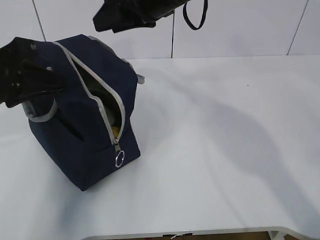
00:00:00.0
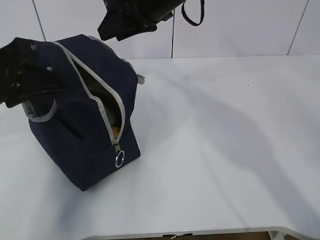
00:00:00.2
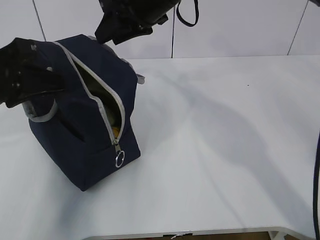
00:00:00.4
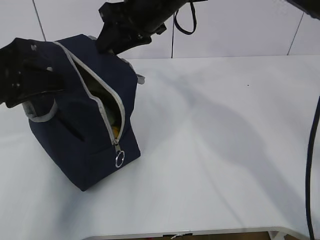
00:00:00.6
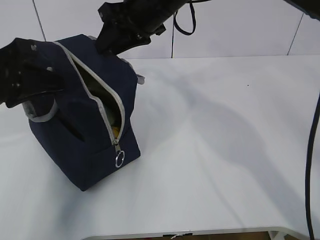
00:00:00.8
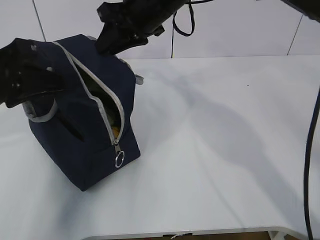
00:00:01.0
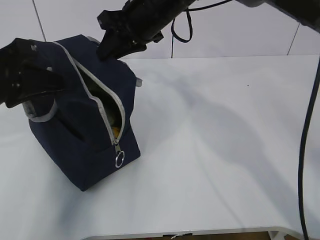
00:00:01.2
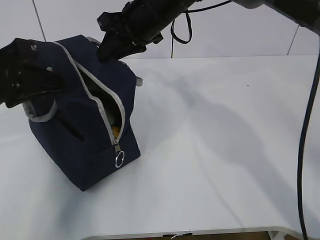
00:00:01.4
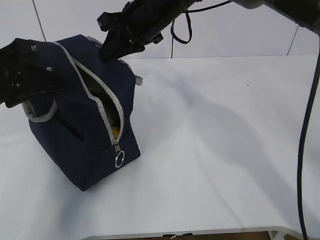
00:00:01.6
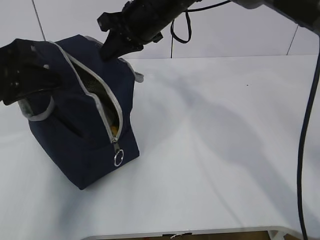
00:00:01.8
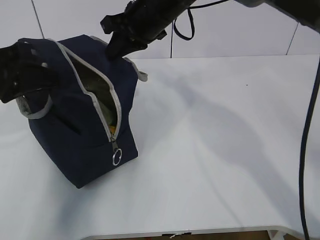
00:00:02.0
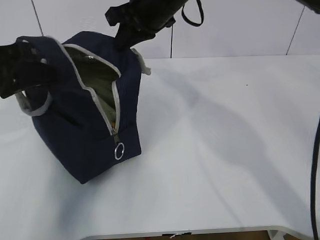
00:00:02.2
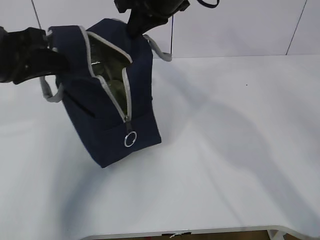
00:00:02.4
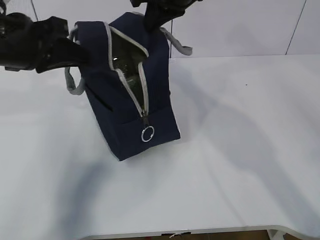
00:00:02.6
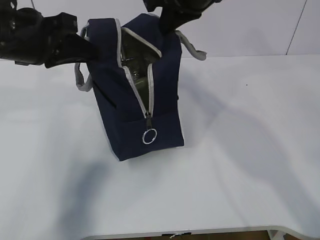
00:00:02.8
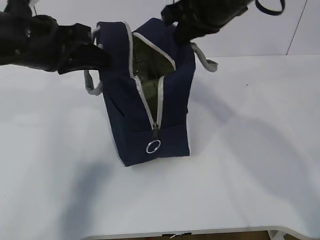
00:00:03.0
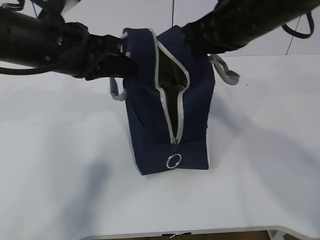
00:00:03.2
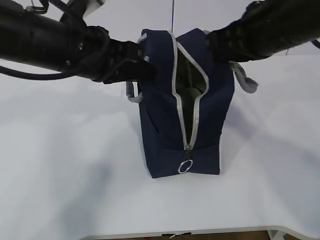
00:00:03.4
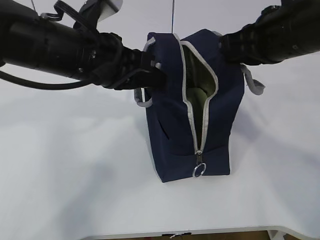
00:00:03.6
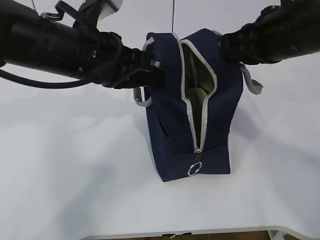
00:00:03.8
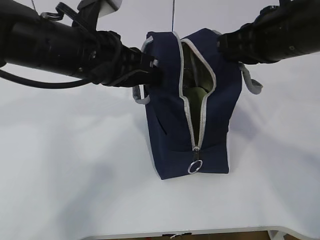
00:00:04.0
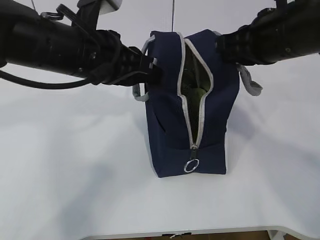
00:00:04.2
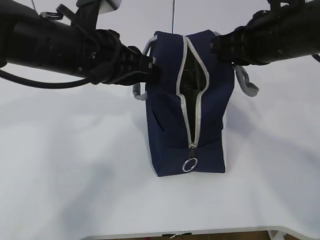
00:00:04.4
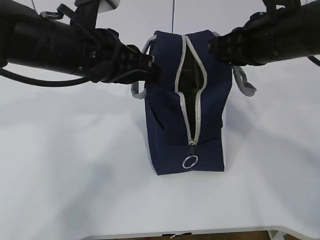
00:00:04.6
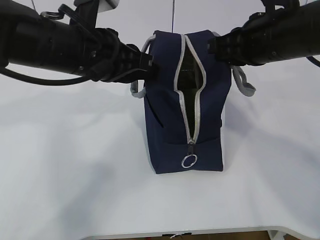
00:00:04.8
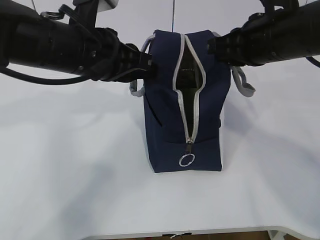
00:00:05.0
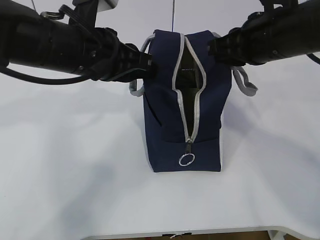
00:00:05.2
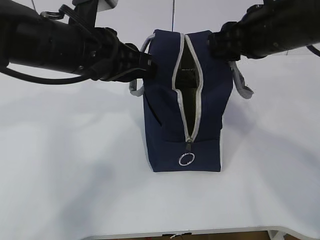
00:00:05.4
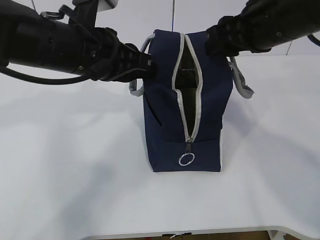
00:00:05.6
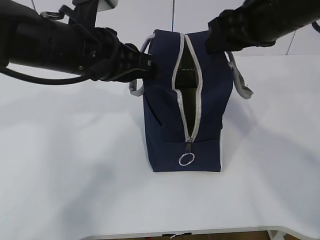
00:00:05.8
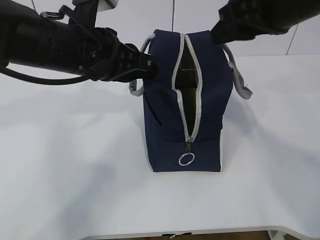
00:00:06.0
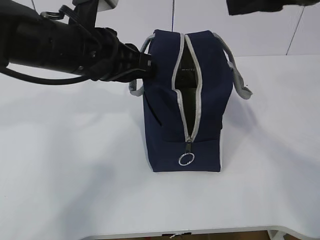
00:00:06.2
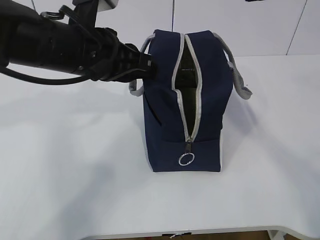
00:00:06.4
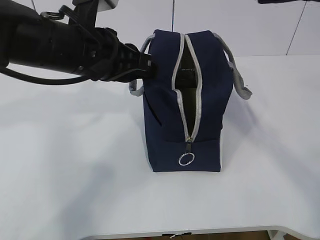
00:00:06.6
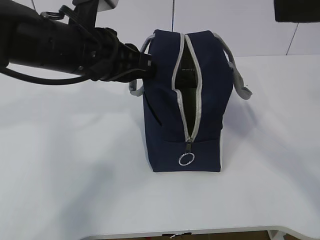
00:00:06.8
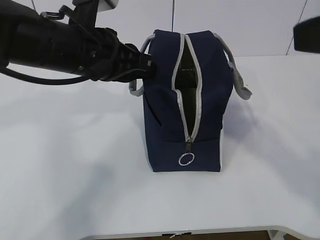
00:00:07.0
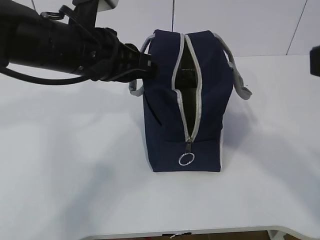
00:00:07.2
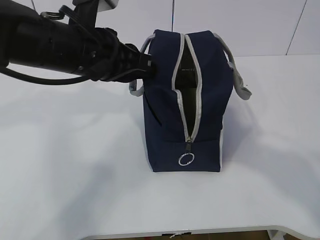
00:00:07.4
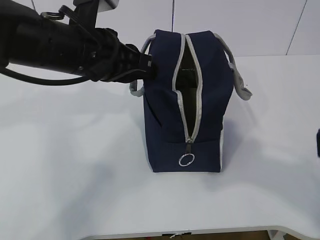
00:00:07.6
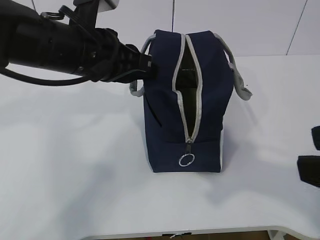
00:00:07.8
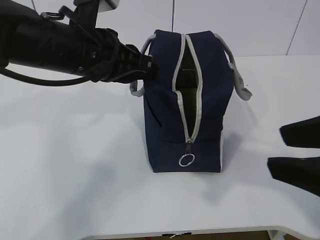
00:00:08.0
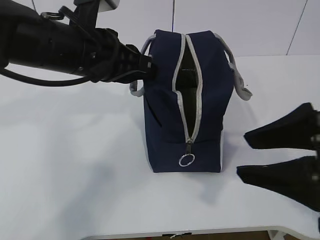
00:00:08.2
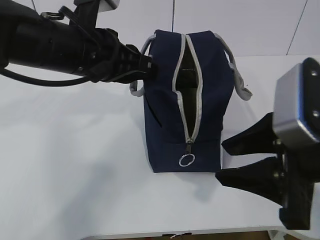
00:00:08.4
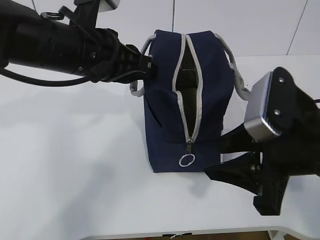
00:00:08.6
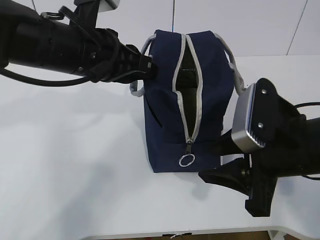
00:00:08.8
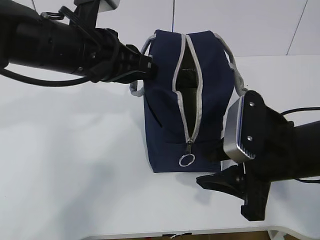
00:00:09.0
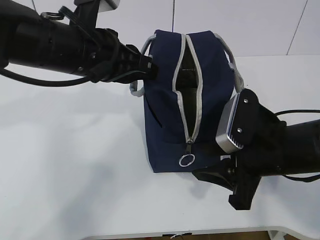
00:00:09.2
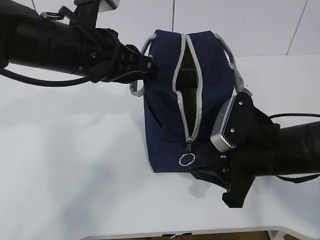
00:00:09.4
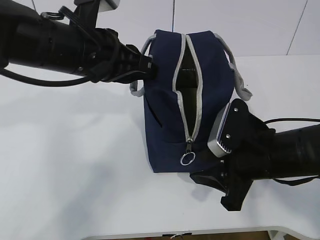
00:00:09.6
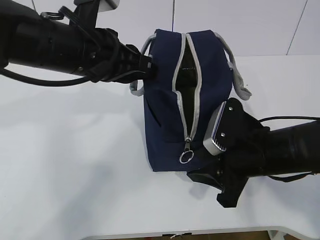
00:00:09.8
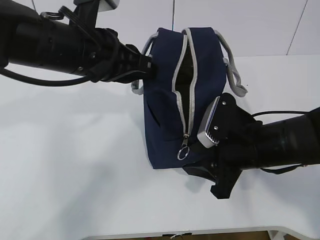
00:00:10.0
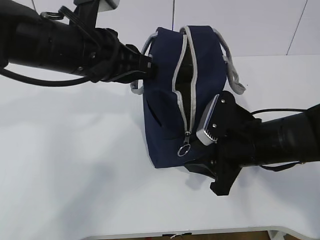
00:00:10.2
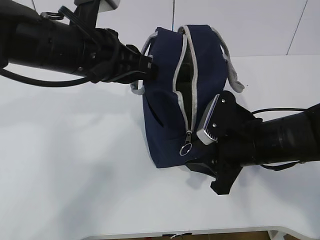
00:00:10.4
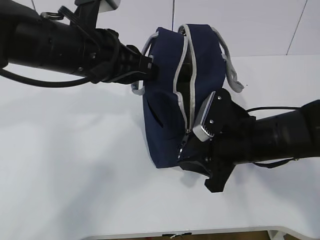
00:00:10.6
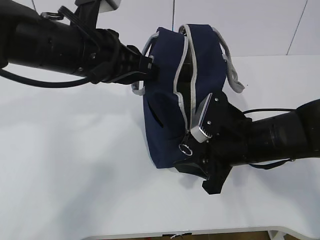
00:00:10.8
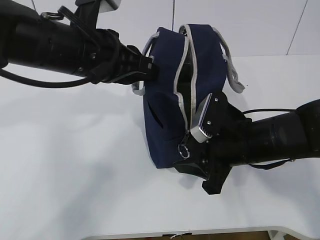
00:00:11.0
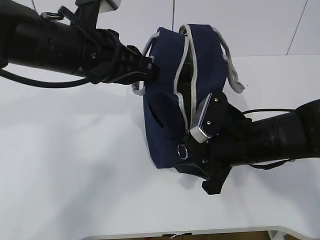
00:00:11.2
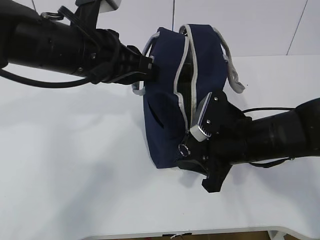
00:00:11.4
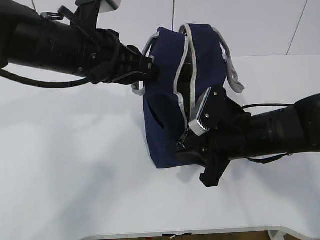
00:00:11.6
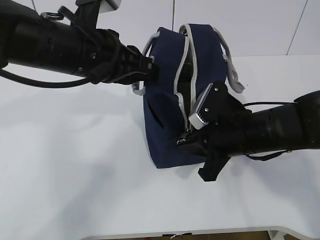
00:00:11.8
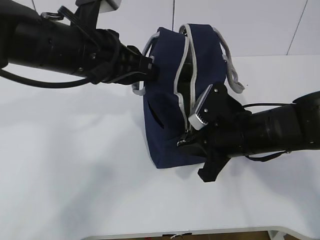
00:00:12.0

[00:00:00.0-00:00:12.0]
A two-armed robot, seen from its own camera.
00:00:00.0 to 00:00:01.6: The right gripper ends up approximately 5 cm from where it was, and closes up.
00:00:01.6 to 00:00:03.0: The right gripper goes roughly 10 cm to the right, backward and upward. Meanwhile the left gripper is displaced forward by approximately 5 cm.
00:00:03.0 to 00:00:04.4: The right gripper moves to the right and backward, about 10 cm. Meanwhile the left gripper shifts approximately 10 cm to the right.
00:00:04.4 to 00:00:06.0: The right gripper goes roughly 5 cm upward, and opens.
00:00:06.0 to 00:00:07.6: The right gripper heads backward, covering some 20 cm.
00:00:07.6 to 00:00:09.0: The right gripper shifts approximately 20 cm forward, downward and to the left.
00:00:09.0 to 00:00:10.4: The right gripper moves forward, approximately 5 cm.
00:00:10.4 to 00:00:12.0: The right gripper closes.

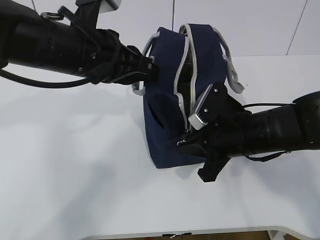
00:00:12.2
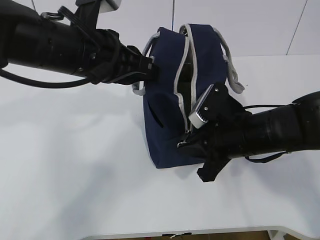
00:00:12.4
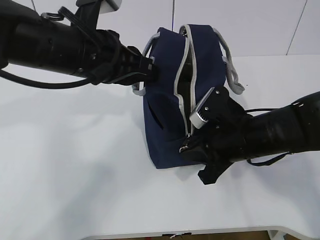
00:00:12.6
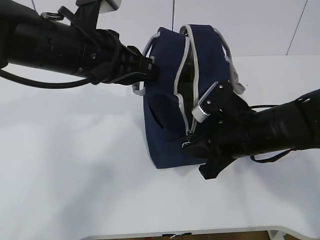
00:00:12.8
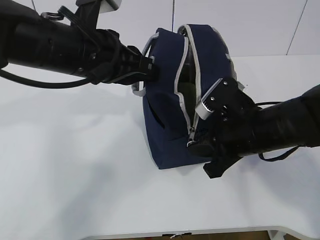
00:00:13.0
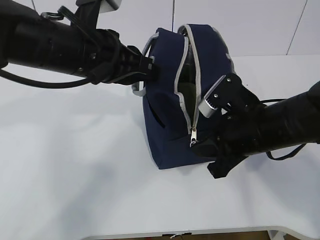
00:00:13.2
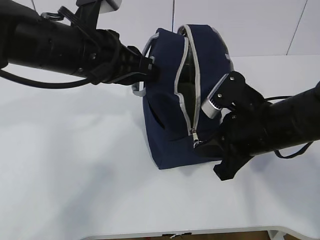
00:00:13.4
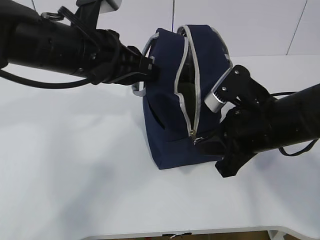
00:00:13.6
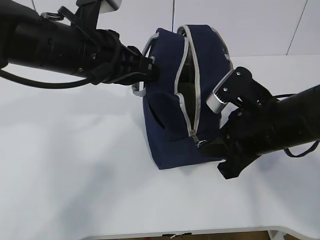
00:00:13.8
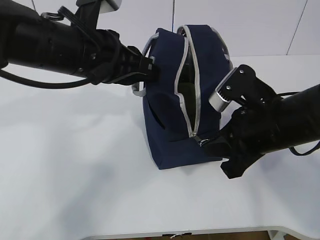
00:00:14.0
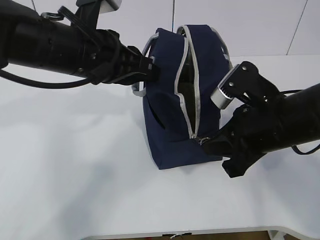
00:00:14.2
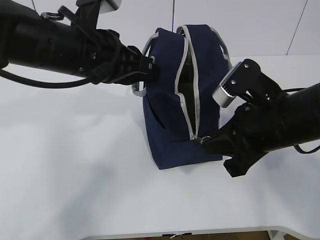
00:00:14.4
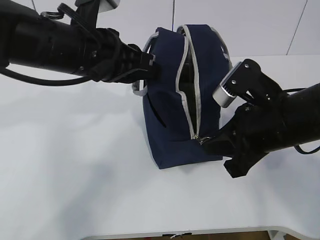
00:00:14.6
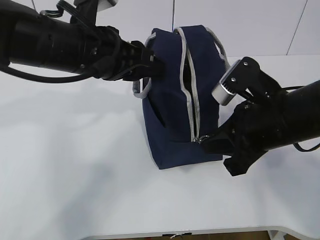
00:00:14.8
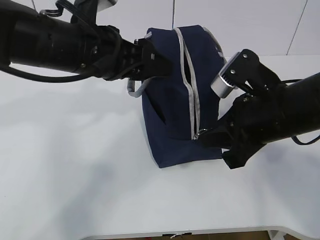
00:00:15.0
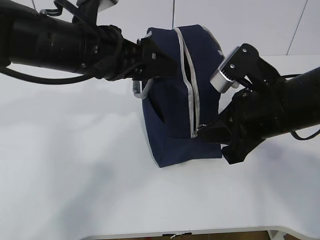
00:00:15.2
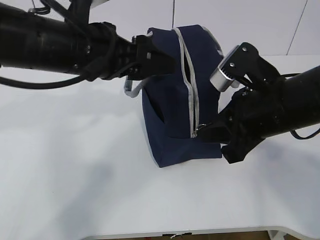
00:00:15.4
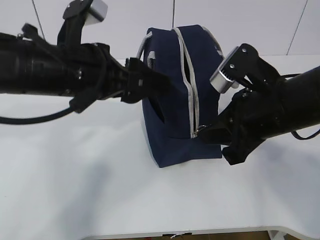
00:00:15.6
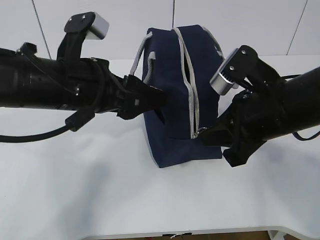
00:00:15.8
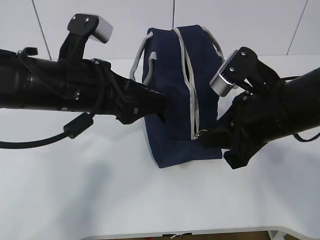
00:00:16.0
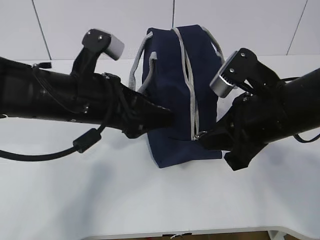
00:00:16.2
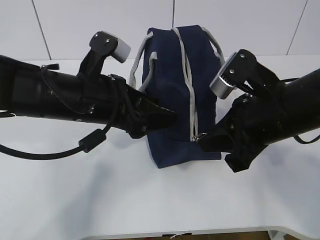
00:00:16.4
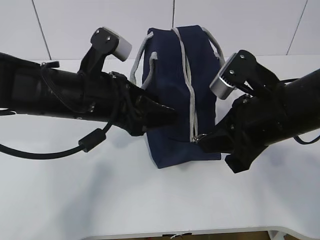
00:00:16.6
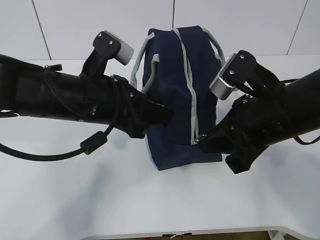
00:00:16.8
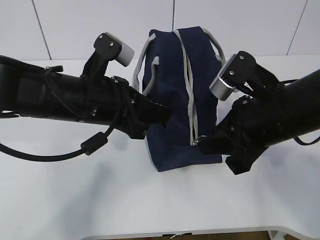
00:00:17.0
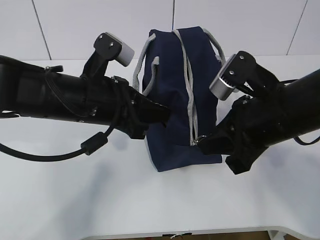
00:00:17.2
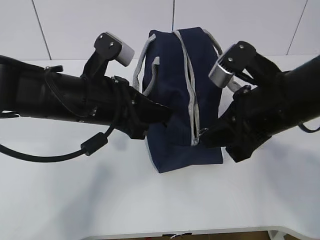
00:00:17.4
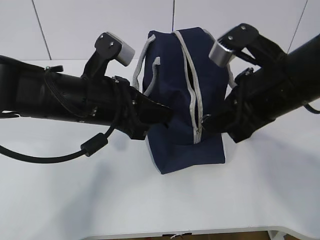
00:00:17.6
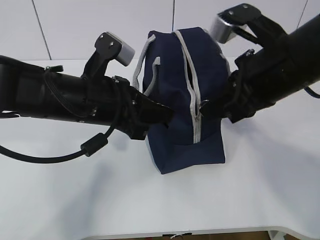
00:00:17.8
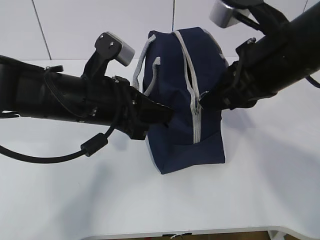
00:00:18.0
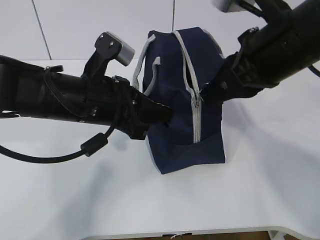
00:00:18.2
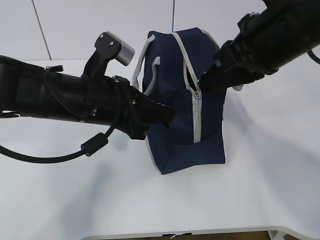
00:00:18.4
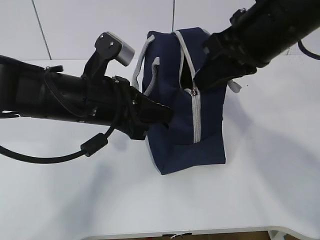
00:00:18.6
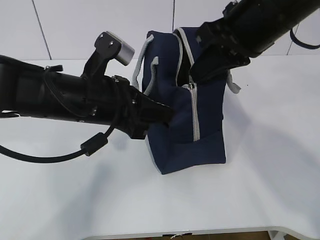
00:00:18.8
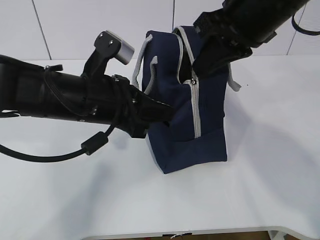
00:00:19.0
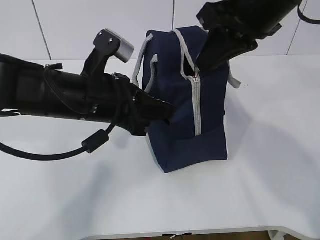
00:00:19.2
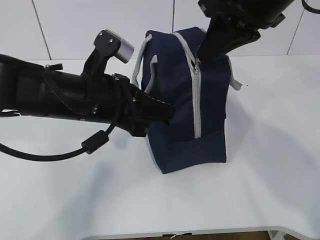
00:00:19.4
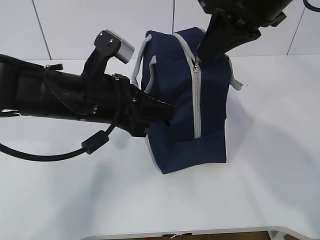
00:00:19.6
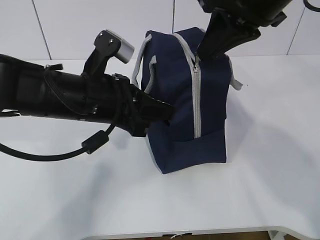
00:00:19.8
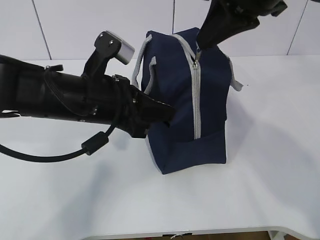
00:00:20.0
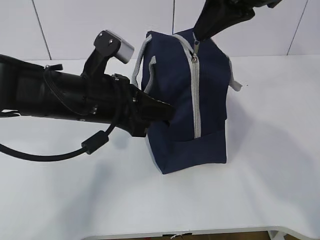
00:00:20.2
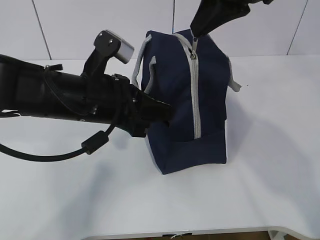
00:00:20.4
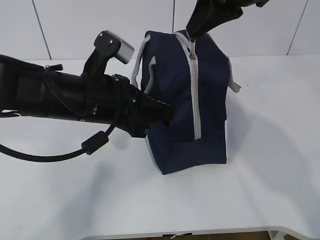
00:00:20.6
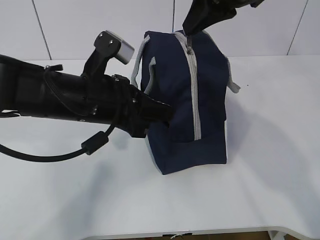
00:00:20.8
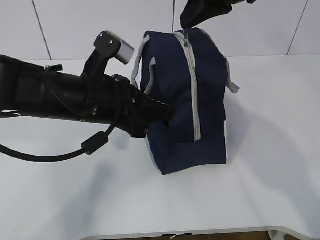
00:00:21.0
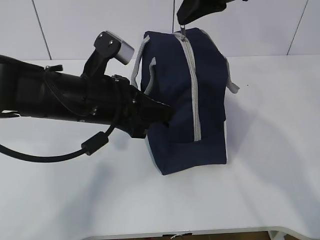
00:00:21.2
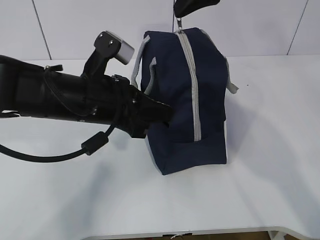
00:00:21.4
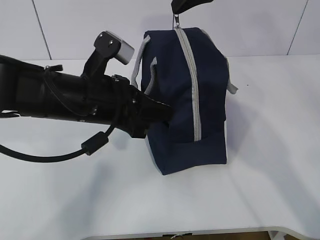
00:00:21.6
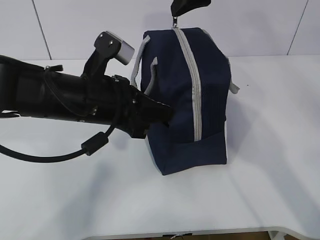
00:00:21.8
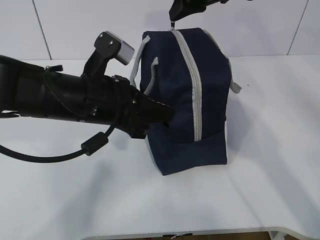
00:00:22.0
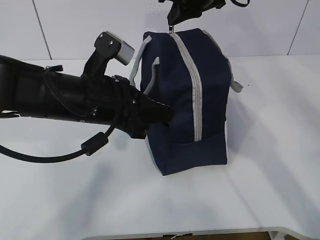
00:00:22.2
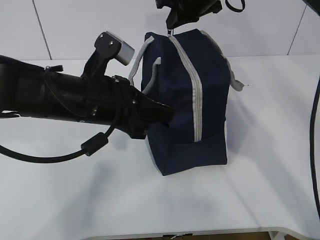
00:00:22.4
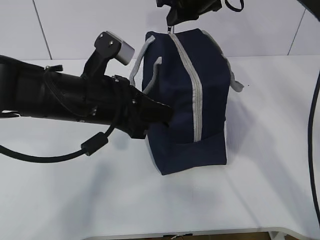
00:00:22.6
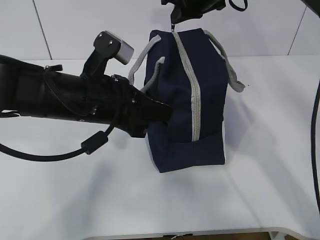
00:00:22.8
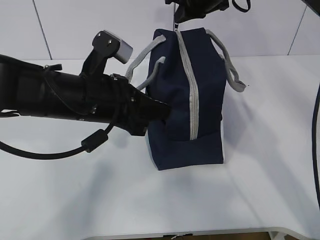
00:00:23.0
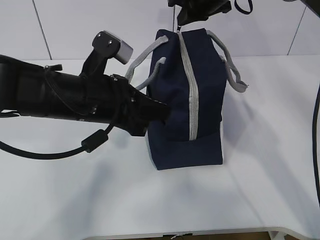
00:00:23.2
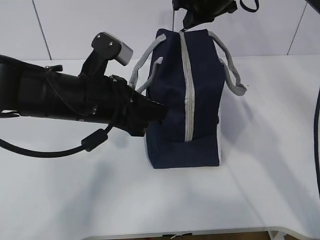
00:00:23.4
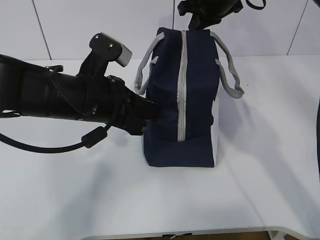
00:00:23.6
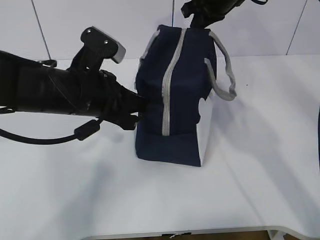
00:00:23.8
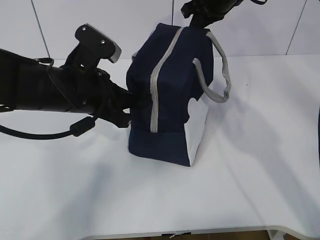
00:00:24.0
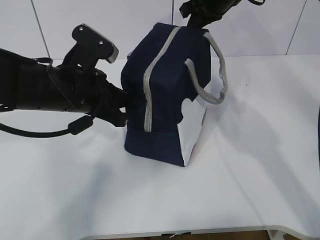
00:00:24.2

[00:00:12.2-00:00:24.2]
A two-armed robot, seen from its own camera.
00:00:12.2 to 00:00:13.8: The right gripper shifts by roughly 5 cm.
00:00:13.8 to 00:00:15.2: The left gripper opens up.
00:00:15.2 to 00:00:16.6: The left gripper moves downward, roughly 5 cm.
00:00:16.6 to 00:00:18.2: The right gripper shifts roughly 10 cm upward. Meanwhile the left gripper closes up.
00:00:18.2 to 00:00:19.8: The right gripper goes some 5 cm upward.
00:00:19.8 to 00:00:21.2: The right gripper moves forward, about 5 cm.
00:00:21.2 to 00:00:22.6: The right gripper travels forward and downward by about 15 cm.
